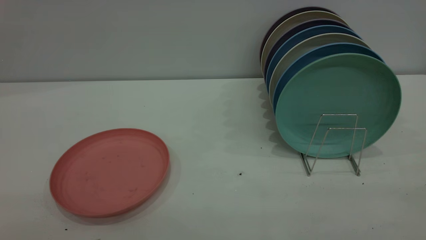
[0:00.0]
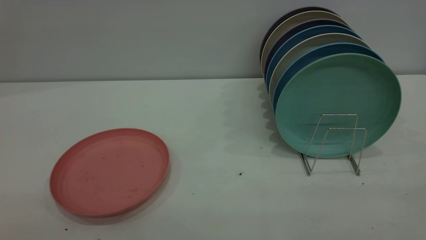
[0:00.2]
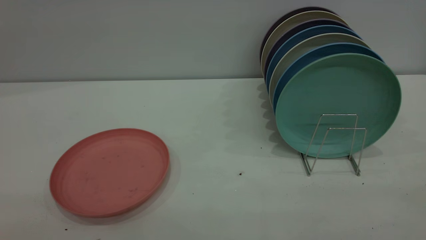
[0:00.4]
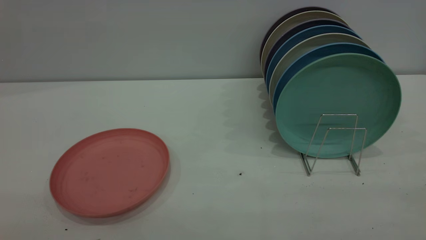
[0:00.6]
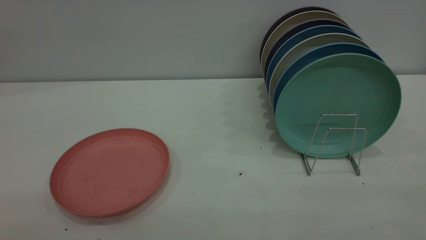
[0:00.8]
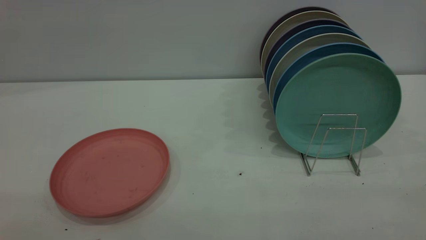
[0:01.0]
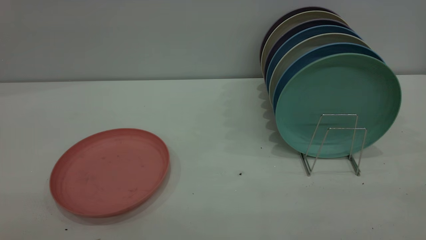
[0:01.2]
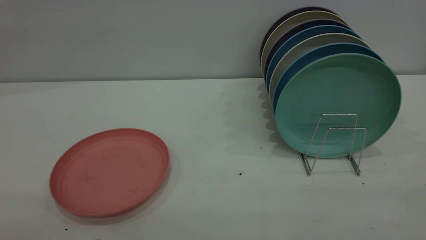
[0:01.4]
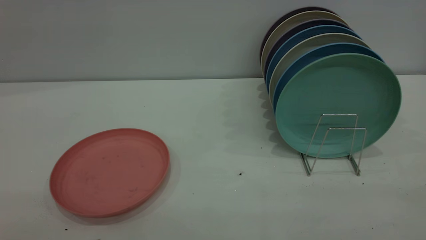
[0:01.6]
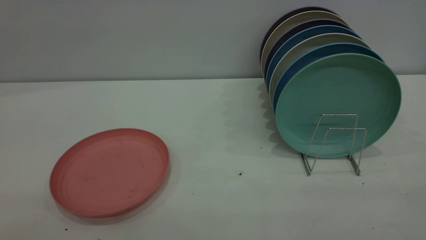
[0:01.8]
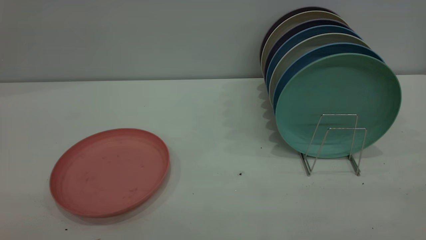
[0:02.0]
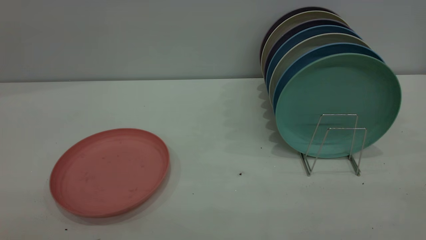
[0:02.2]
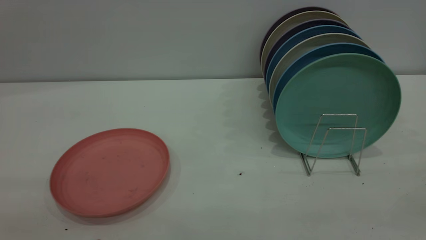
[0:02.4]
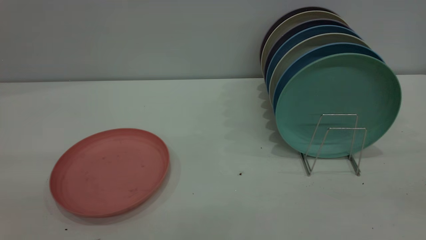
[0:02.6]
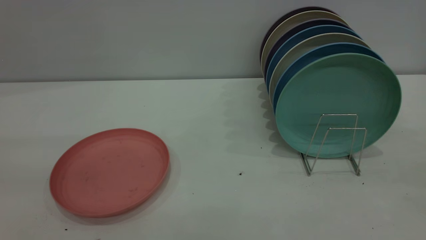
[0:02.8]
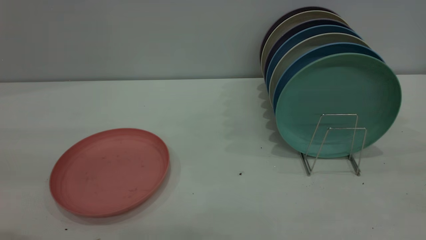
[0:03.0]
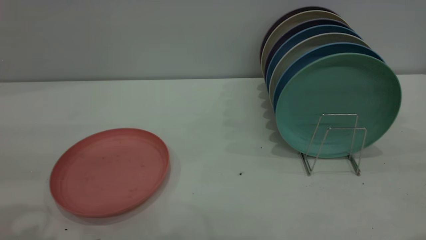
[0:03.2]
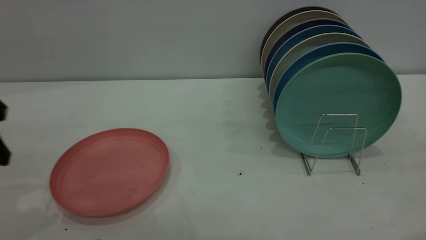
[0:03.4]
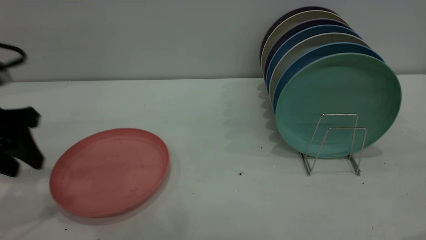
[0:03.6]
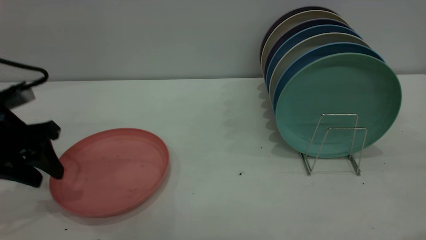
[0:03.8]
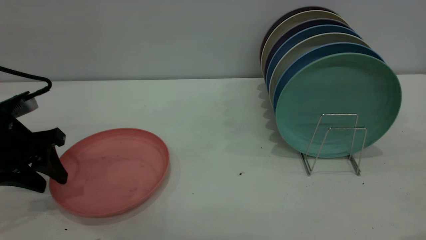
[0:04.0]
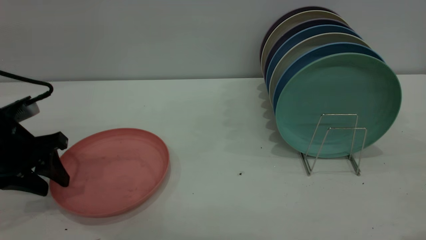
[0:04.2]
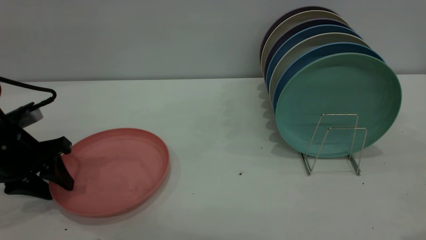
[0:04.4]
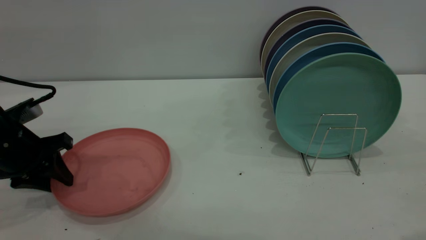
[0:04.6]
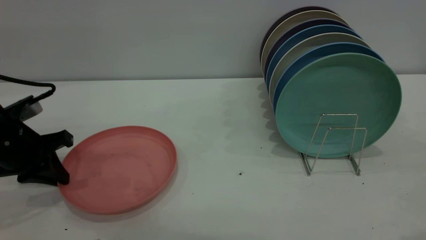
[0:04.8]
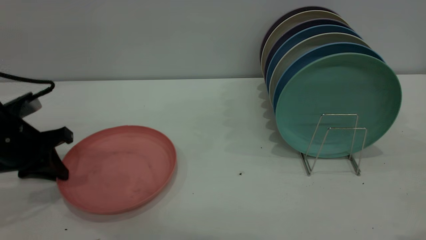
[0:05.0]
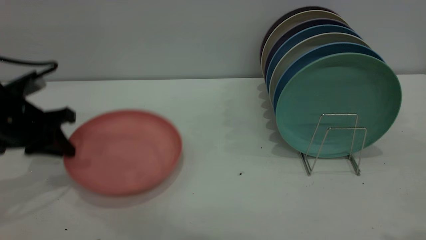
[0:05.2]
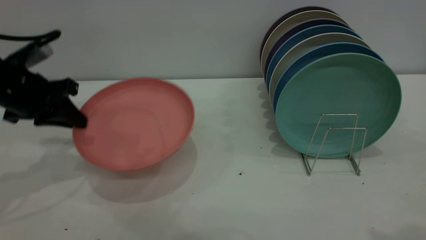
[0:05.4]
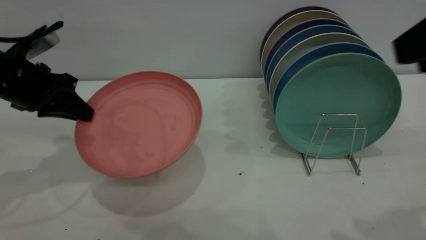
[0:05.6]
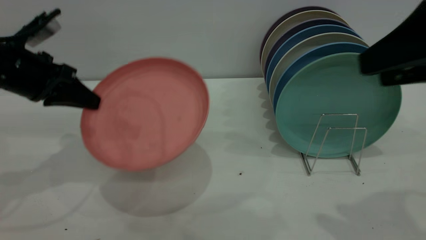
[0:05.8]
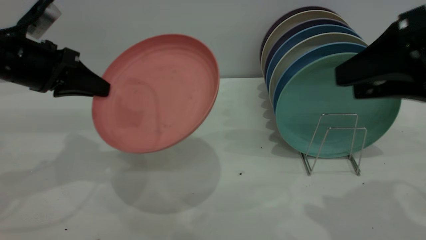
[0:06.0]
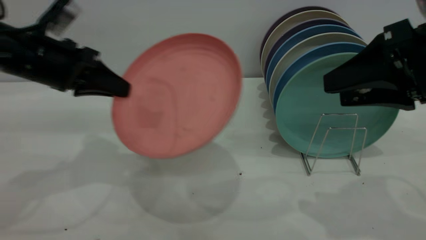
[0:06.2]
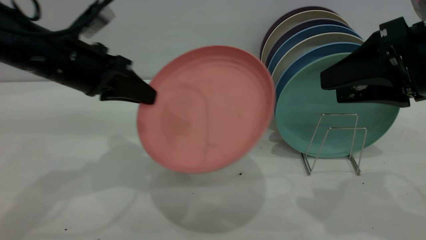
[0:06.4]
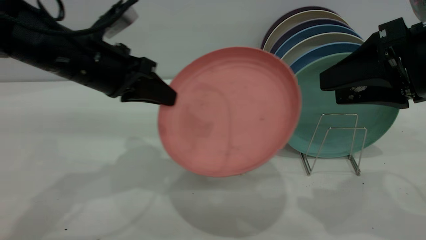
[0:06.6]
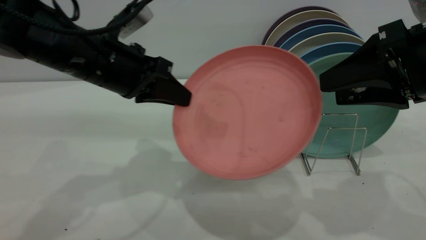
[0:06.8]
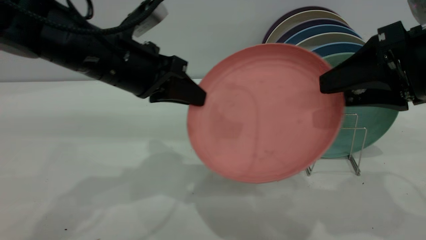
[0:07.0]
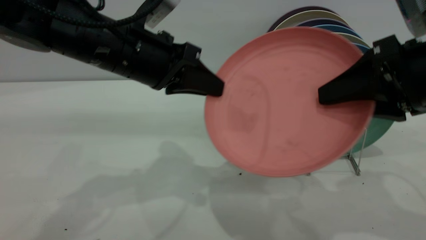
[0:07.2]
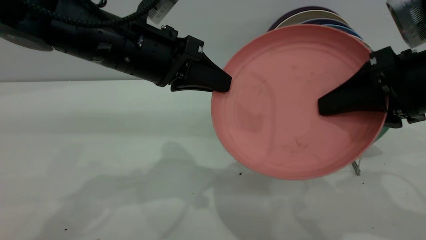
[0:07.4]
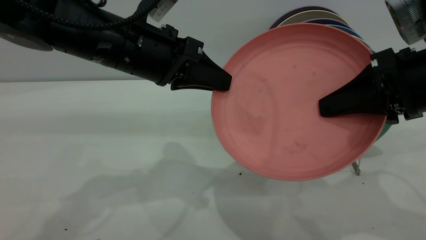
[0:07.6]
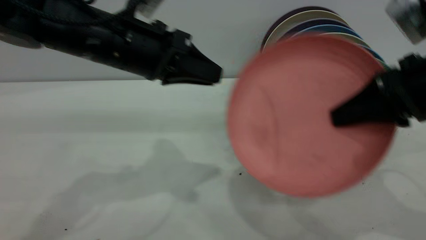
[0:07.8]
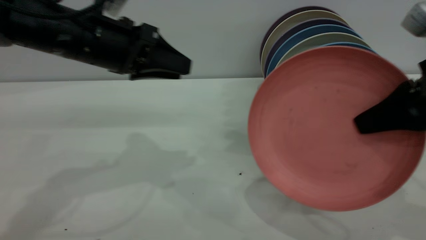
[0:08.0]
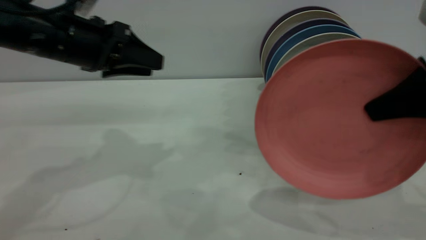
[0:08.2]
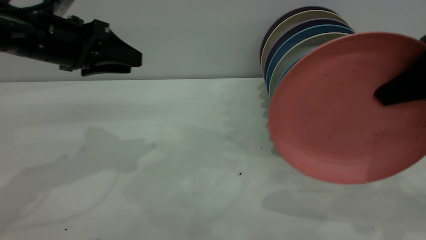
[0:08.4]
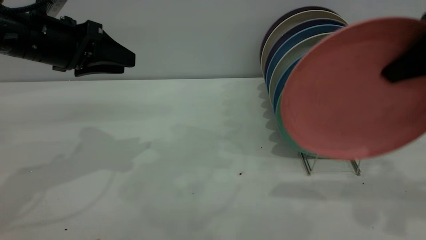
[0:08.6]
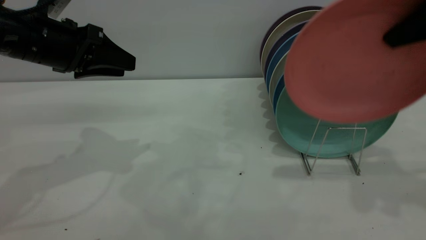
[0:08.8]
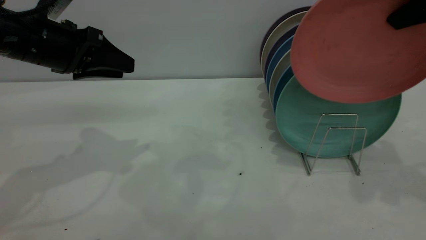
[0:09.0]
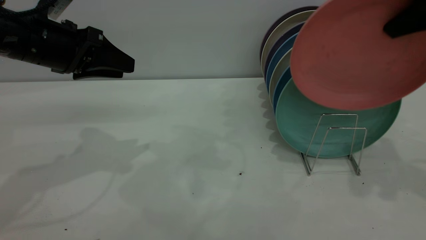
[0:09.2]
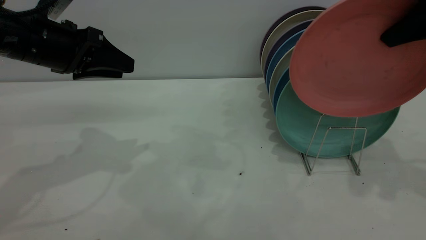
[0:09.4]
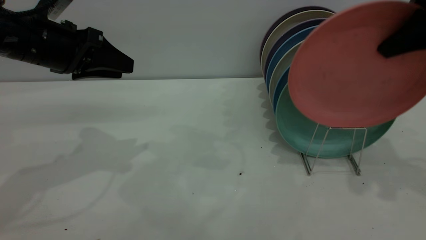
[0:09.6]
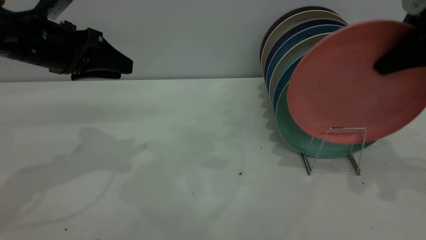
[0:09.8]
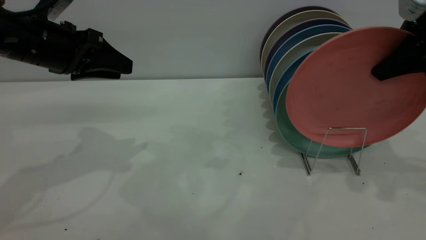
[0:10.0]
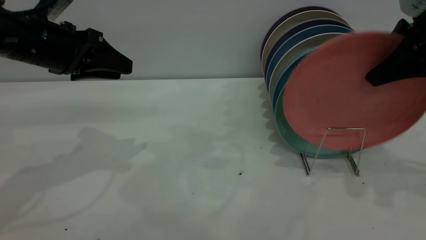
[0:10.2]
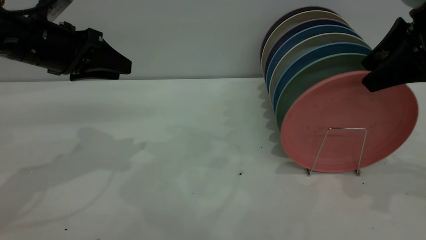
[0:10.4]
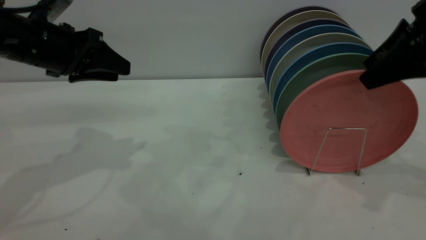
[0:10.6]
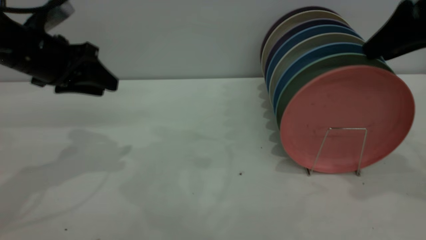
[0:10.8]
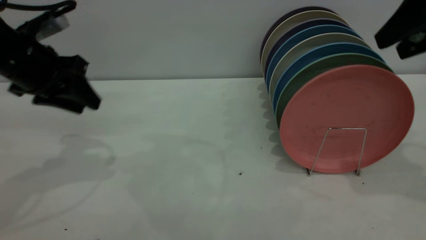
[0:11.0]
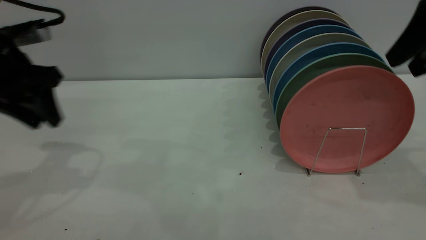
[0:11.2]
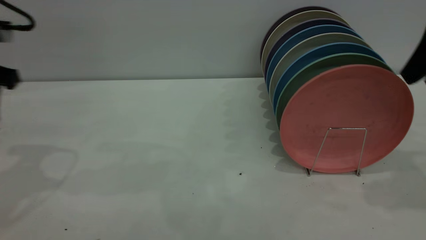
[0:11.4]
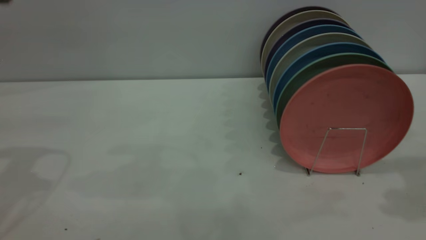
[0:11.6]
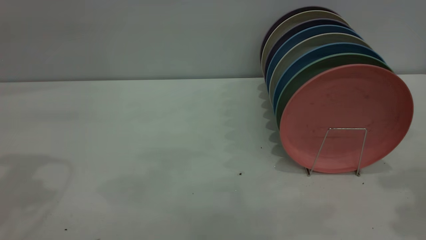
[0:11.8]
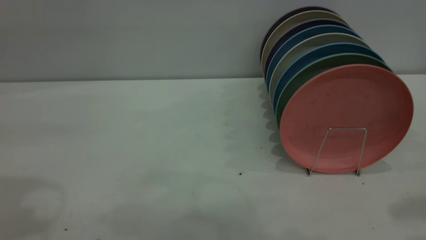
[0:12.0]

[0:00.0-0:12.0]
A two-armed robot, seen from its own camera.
Task of the whole recording: put the plate on the plate rack.
Step, 0:00.0 to 0:05.2: Pick up the plate with the left gripper.
Step, 0:05.4 to 0:07.2: Pass the plate from the left gripper to the right gripper.
Step, 0:07.6 to 0:10.6: Place the plate on the shelf.
0:00.0 to 0:01.6: The two grippers keep their place.
0:03.0 to 0:04.4: The left gripper travels downward and forward by roughly 25 cm.
0:04.4 to 0:06.0: The right gripper is displaced forward and downward by approximately 15 cm, while the left gripper moves upward, some 10 cm, and closes its fingers.
0:06.0 to 0:07.6: The right gripper closes its fingers; the left gripper shifts about 15 cm to the right.
0:07.6 to 0:09.0: The right gripper heads upward, forward and to the right, covering some 15 cm, while the left gripper is displaced to the left by approximately 15 cm, and opens.
0:09.0 to 0:10.4: The right gripper moves downward, roughly 5 cm, and opens up.
0:10.4 to 0:12.0: The left gripper goes about 20 cm upward and backward, while the right gripper is displaced backward and upward by about 15 cm.
